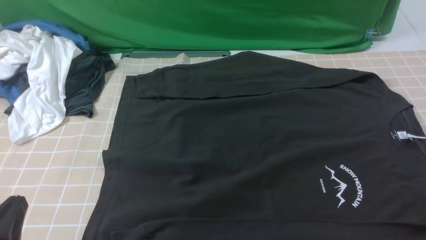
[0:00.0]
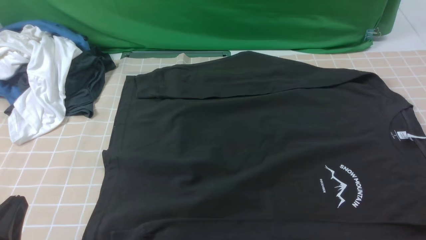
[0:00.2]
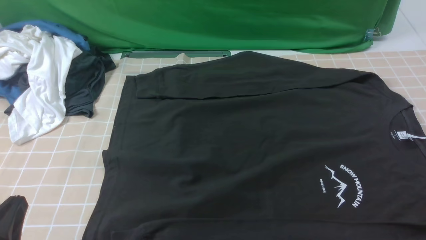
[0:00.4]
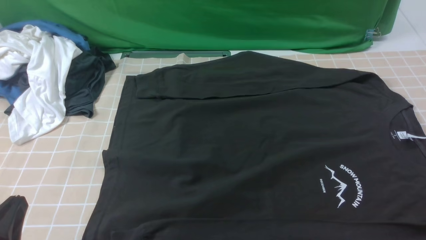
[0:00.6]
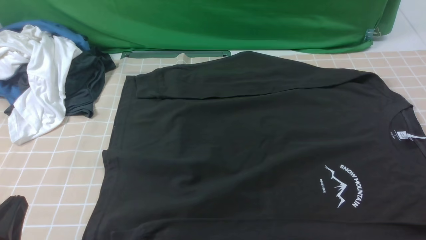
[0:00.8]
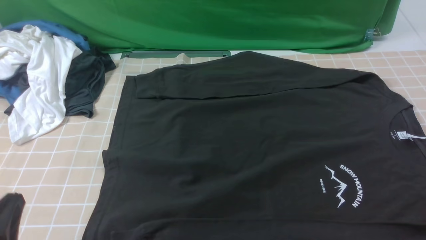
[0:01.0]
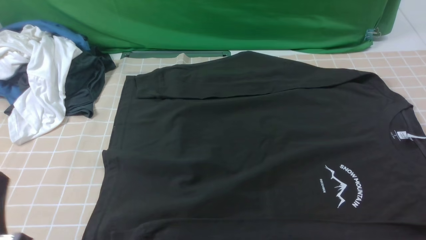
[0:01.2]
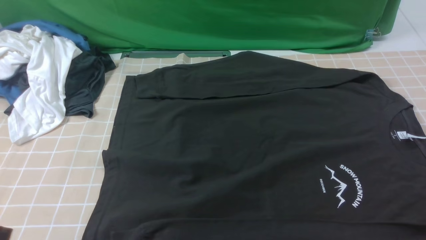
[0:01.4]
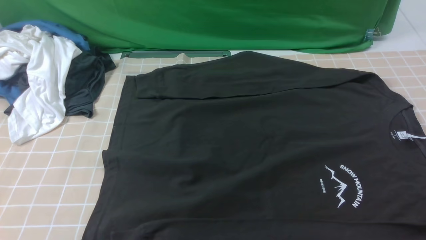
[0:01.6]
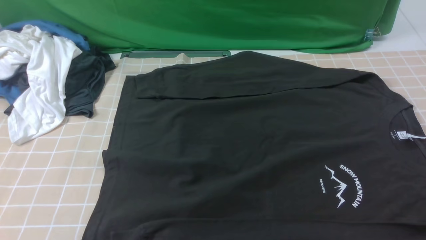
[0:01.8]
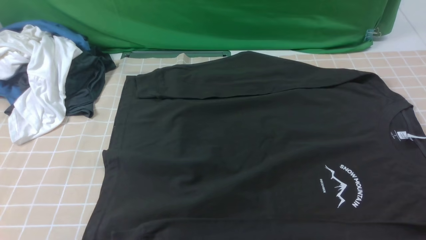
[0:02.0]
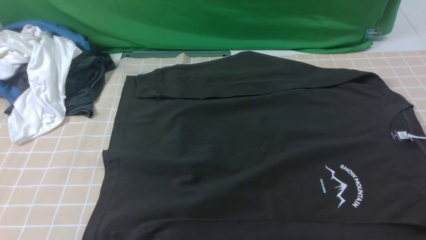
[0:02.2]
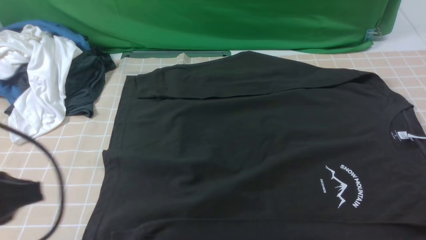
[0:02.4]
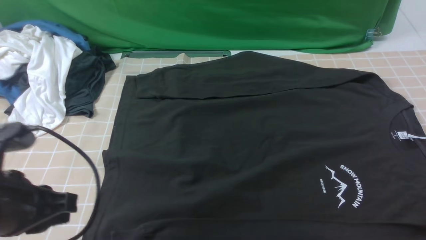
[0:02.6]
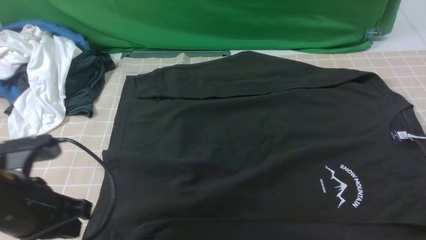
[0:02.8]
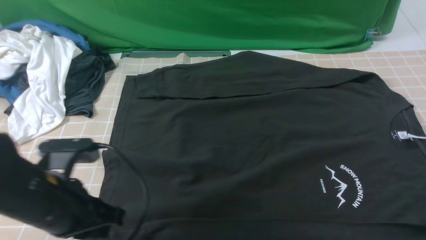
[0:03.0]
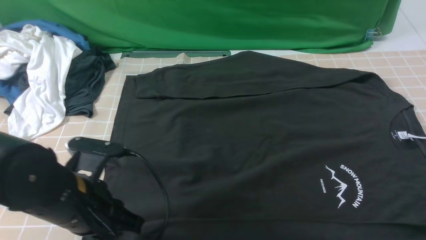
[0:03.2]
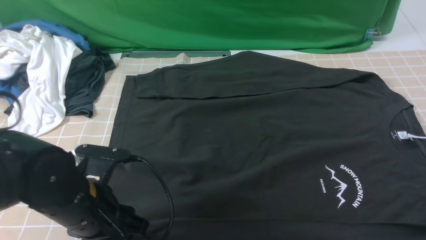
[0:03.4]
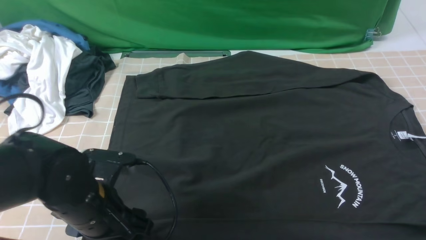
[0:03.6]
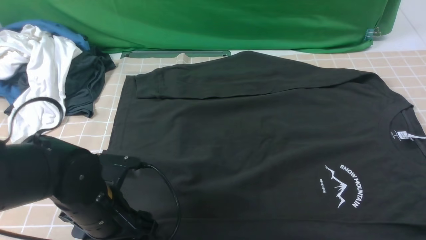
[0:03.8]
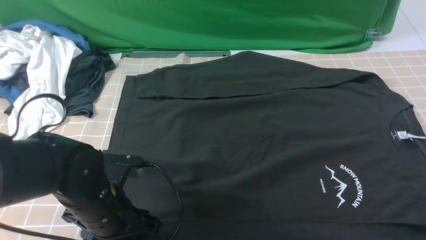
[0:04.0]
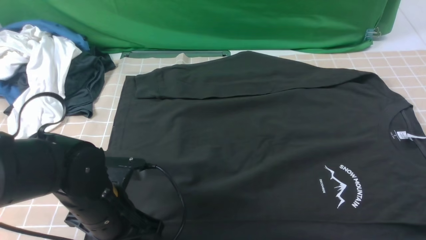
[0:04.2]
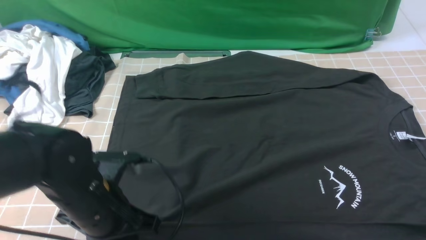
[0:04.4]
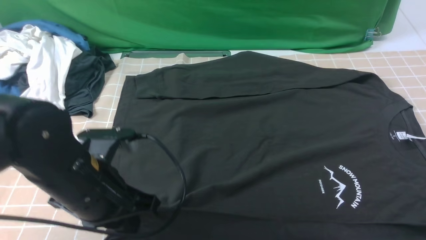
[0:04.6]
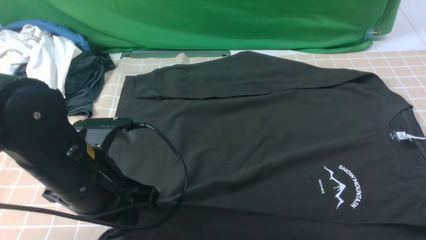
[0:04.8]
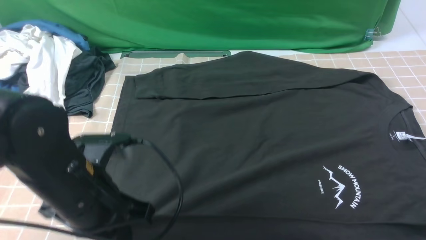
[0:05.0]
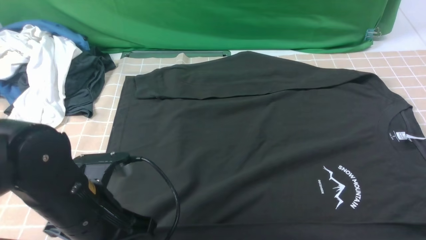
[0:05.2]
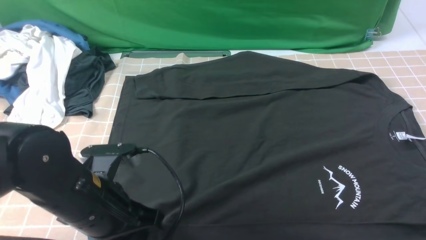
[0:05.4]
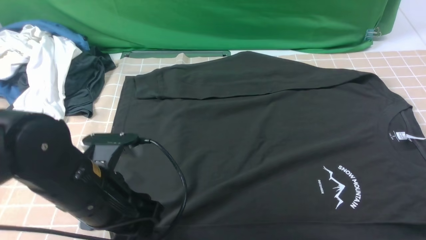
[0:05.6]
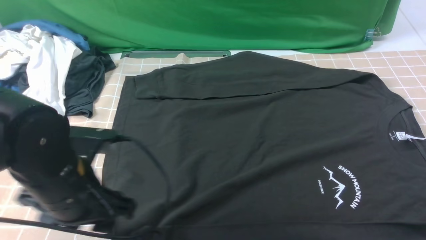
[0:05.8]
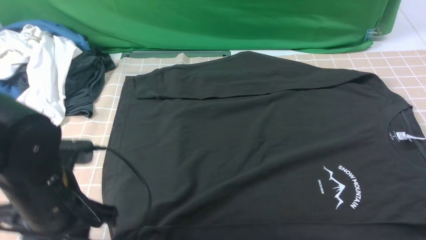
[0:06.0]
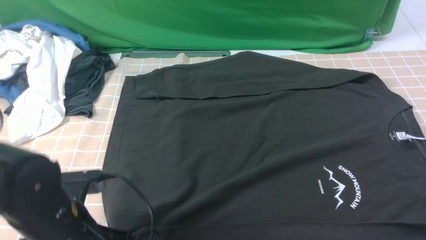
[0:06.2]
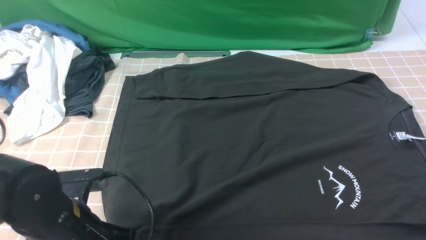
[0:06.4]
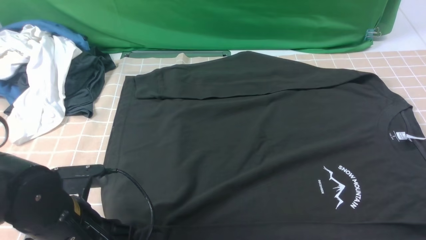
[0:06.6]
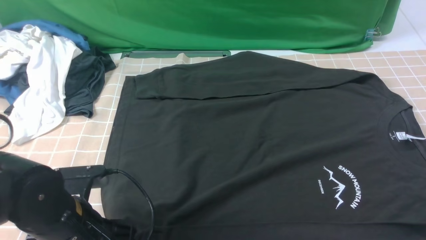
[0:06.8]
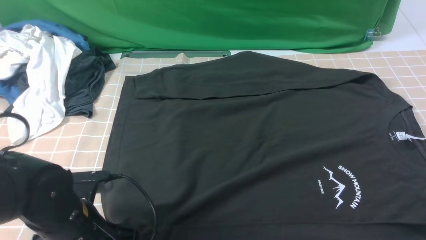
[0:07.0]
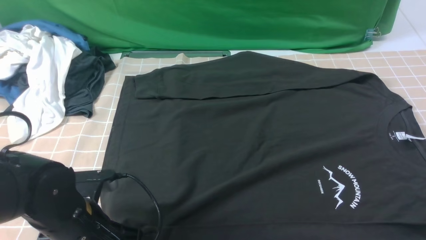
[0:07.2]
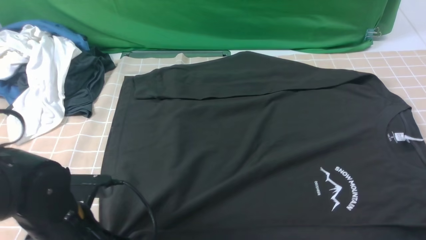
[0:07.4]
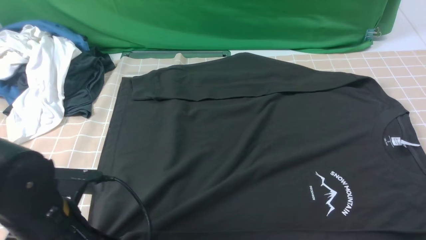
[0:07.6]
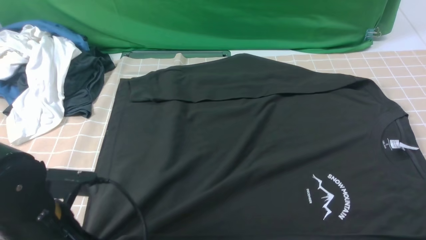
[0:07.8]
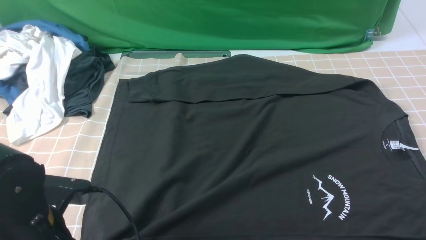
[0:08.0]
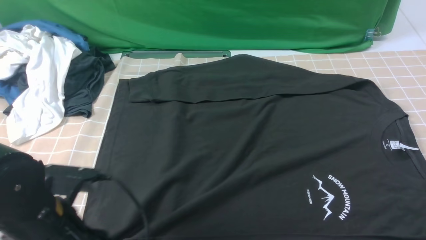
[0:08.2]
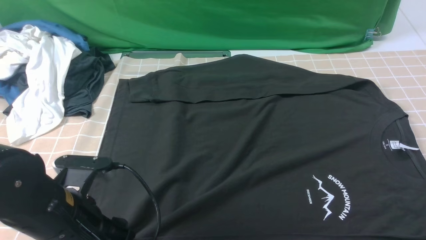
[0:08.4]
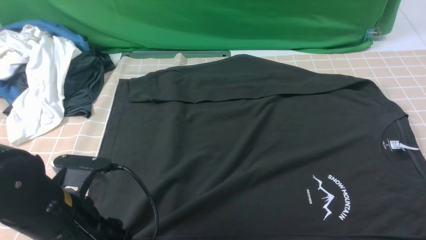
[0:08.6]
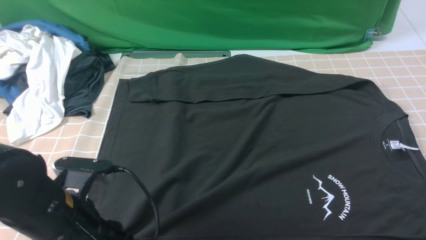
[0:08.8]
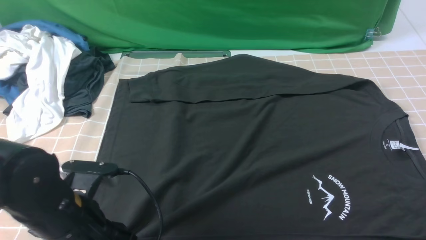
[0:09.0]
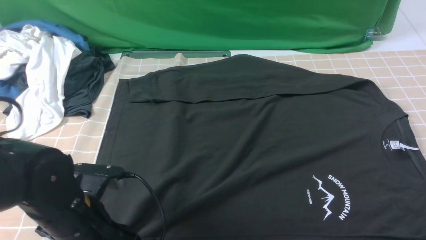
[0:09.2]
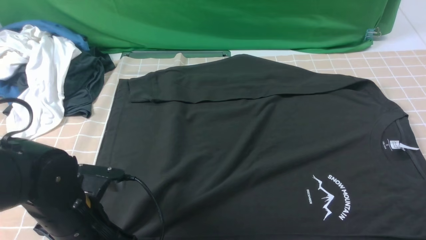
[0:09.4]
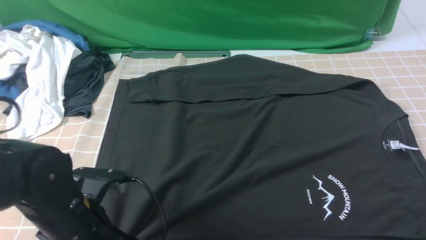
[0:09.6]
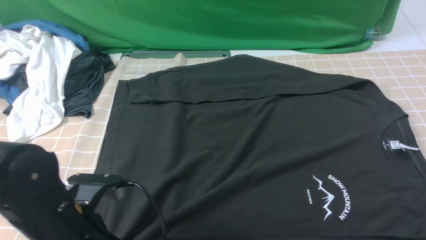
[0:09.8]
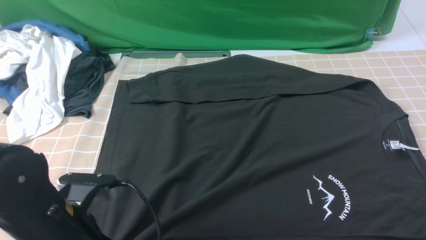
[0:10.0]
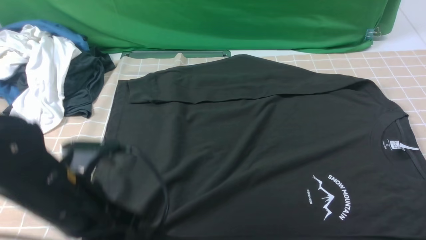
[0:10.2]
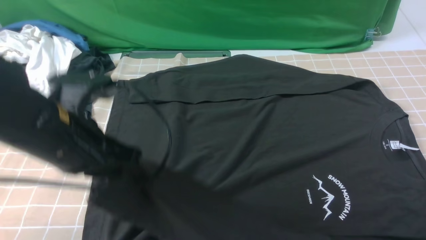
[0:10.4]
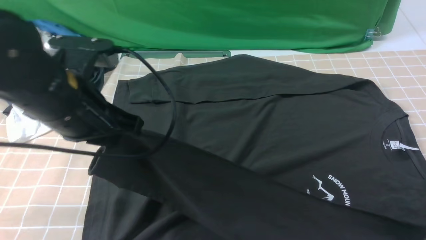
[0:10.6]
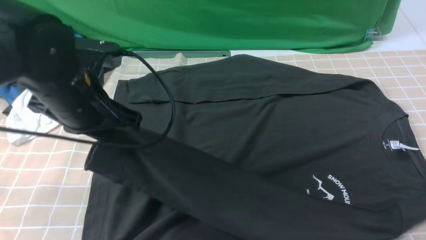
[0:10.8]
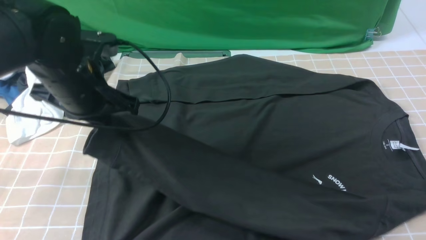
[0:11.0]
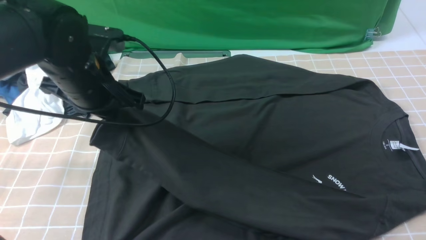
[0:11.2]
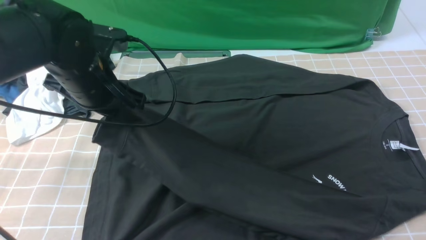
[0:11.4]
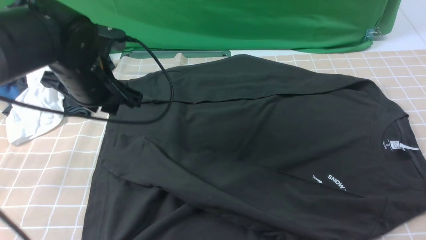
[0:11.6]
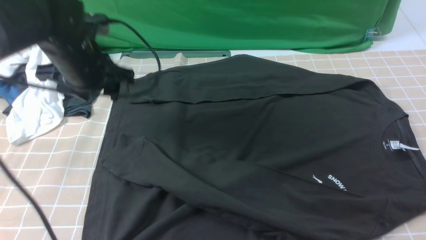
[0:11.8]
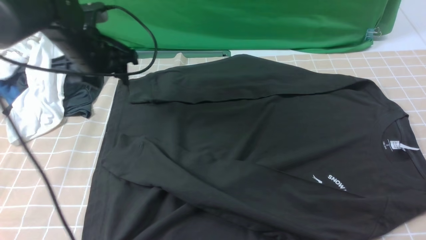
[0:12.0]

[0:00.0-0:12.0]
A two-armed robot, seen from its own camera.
Step, 0:00.0 to 0:09.6: use the left arm to clamp the cuff closest to it.
Step, 0:09.8 to 0:11.6: use the left arm to drag and place the cuff at the centered position on the left edge of the fabric.
0:00.0 to 0:01.6: The left gripper moves upward, approximately 5 cm.
0:01.6 to 0:03.0: The left gripper heads forward and to the right, covering roughly 15 cm.
0:03.0 to 0:04.4: The left gripper shifts by roughly 5 cm, and opens, then closes once more.
0:04.4 to 0:06.0: The left gripper opens its fingers.
0:06.0 to 0:07.6: The left gripper closes its fingers.
0:07.6 to 0:09.0: The left gripper opens its fingers.
0:09.0 to 0:10.4: The left gripper travels upward by approximately 10 cm, and closes its fingers.
0:10.4 to 0:12.0: The left gripper goes approximately 20 cm forward, and opens.

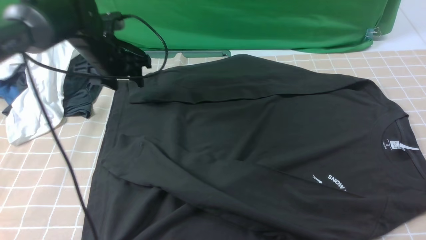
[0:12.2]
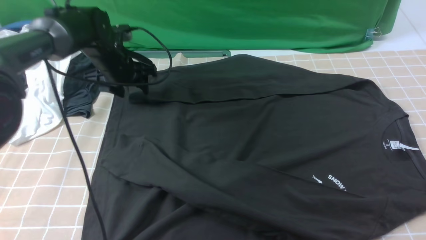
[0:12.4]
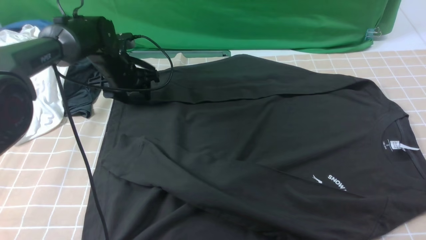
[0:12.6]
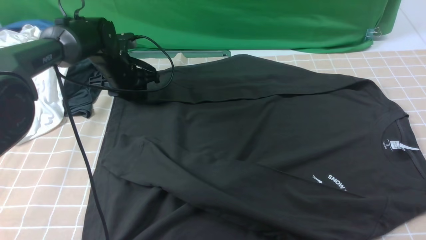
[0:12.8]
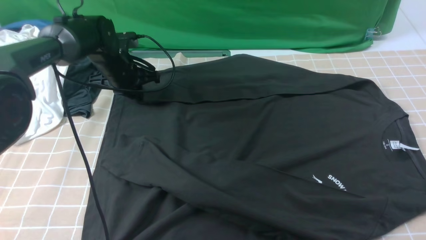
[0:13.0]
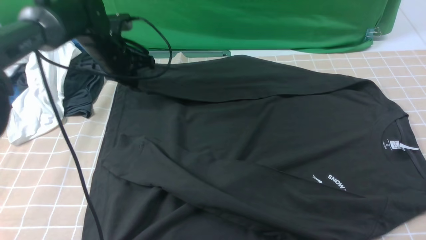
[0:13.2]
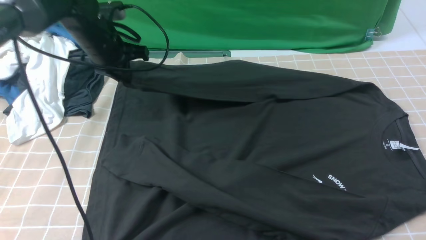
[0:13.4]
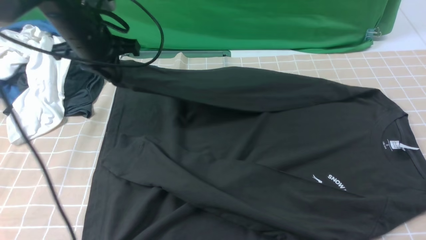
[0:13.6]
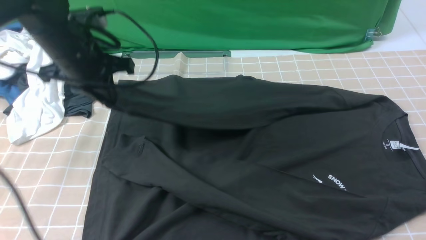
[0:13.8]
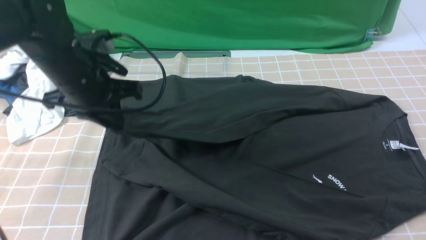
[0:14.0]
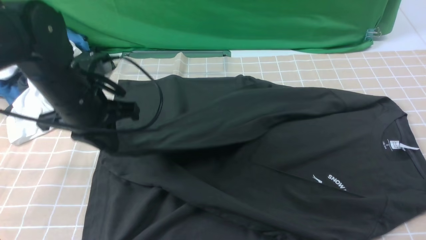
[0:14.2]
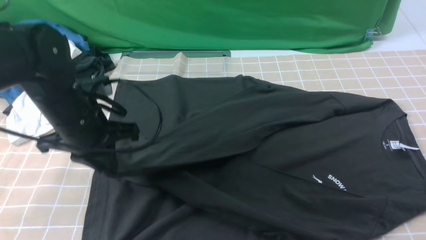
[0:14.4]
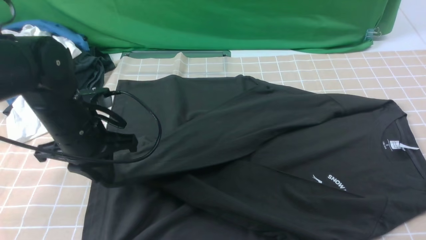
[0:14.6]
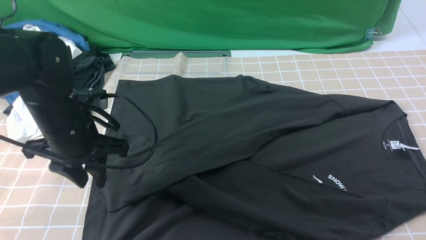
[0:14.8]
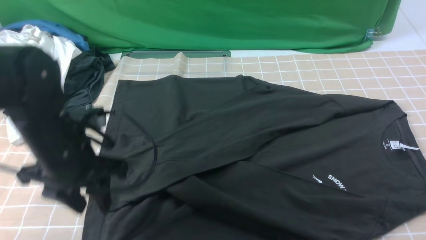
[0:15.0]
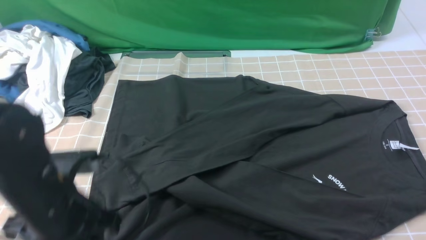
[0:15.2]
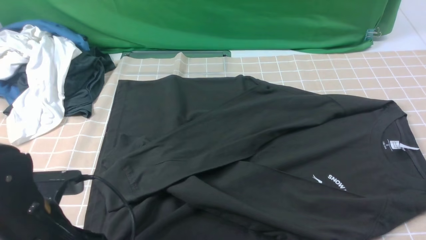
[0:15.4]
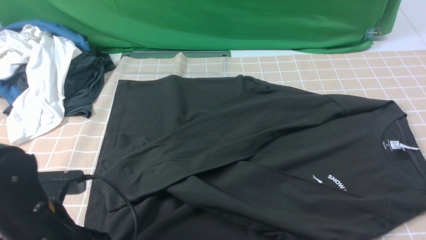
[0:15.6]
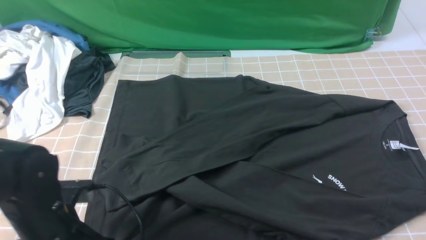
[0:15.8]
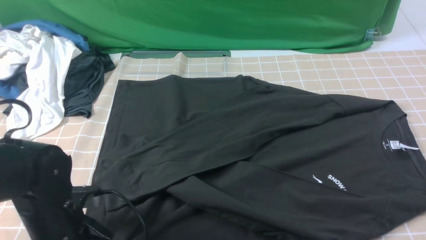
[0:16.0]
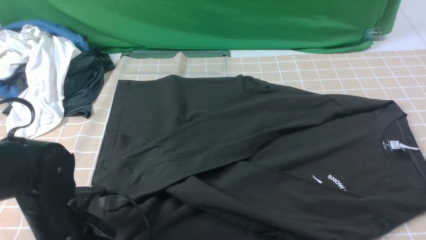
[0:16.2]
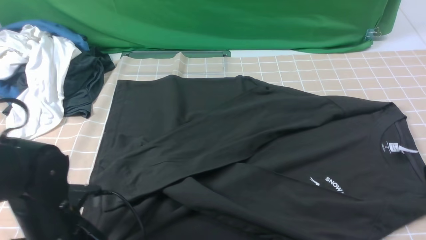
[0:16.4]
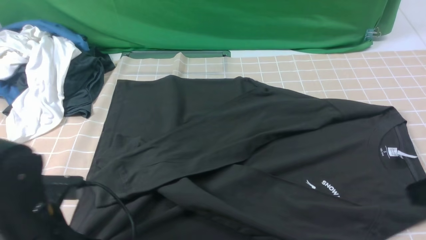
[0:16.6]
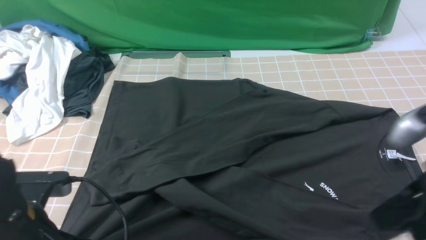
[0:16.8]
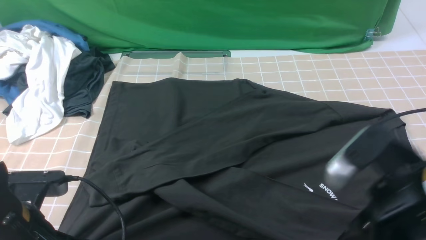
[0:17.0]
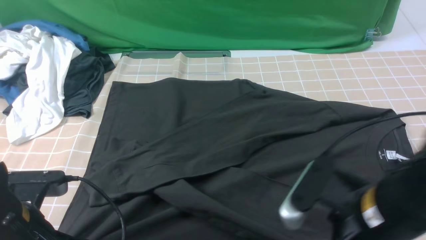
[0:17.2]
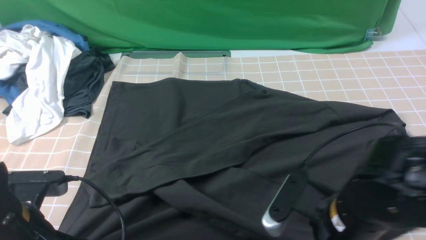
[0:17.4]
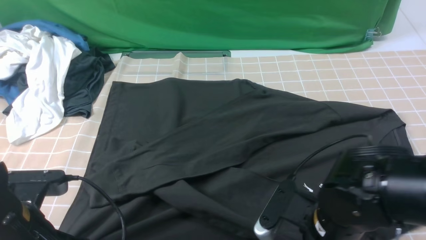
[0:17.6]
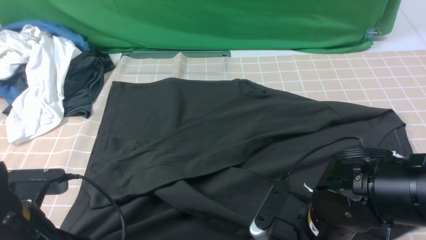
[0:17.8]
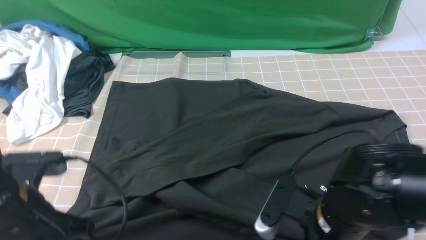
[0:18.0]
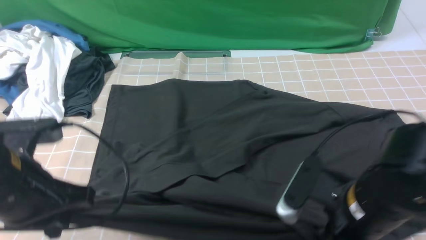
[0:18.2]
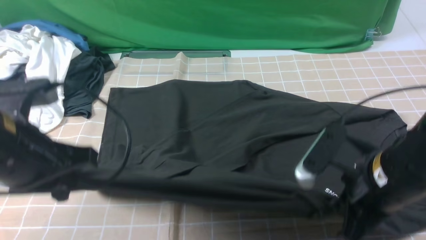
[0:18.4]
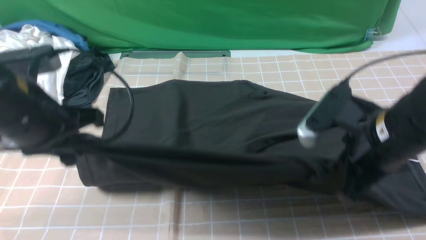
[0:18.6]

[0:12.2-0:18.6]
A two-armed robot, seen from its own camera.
Step, 0:12.2 to 0:13.0: use the left arm to clamp the cuff farthest from it.
Step, 0:13.2 to 0:14.8: use the left arm to drag and drop the cuff onto the cuff closest to the left arm.
Step, 0:15.2 to 0:17.6: use both arms simultaneously to clamp the lower edge of the clothing fabric.
0:12.2 to 0:13.8: The left gripper is displaced backward and upward by about 10 cm, and closes its fingers.
0:13.8 to 0:15.4: The left gripper goes roughly 20 cm backward and downward, and opens.
0:15.4 to 0:17.0: The right gripper moves to the left and downward, about 10 cm; the left gripper closes its fingers.
0:17.0 to 0:18.6: The left gripper shifts approximately 15 cm forward and upward, while the right gripper moves forward, about 10 cm, moves approximately 10 cm downward and comes back, and closes its fingers.
